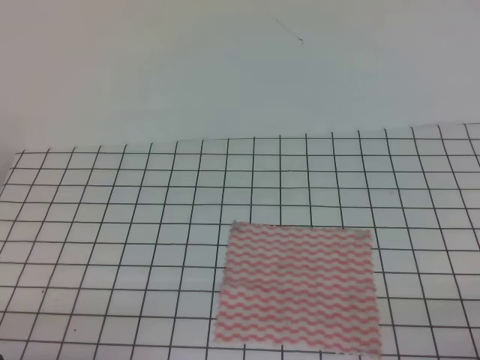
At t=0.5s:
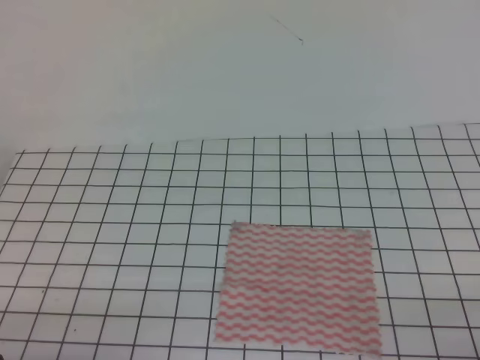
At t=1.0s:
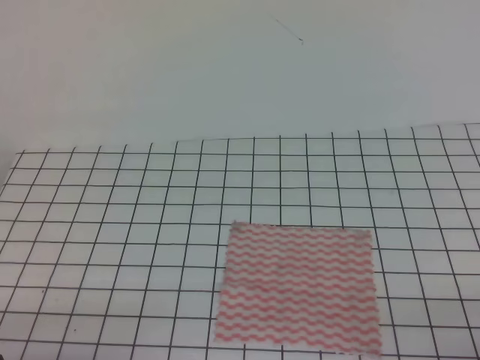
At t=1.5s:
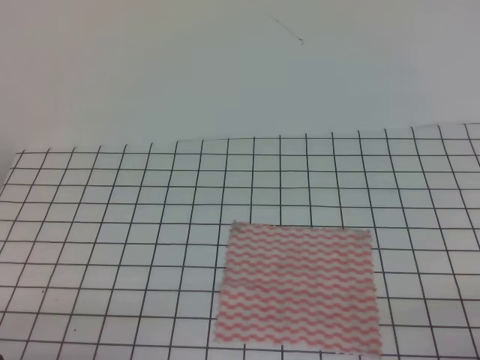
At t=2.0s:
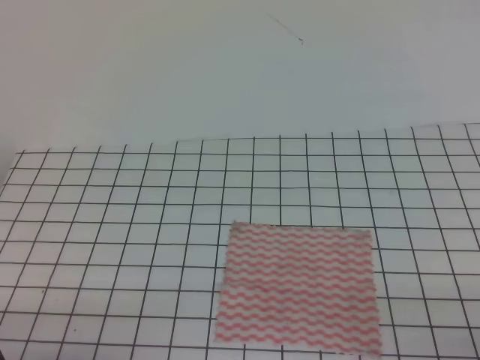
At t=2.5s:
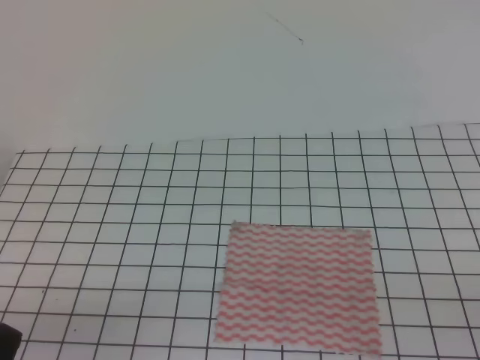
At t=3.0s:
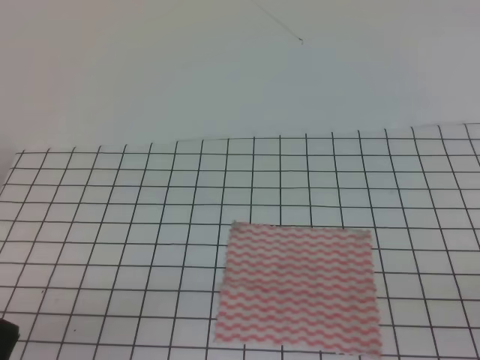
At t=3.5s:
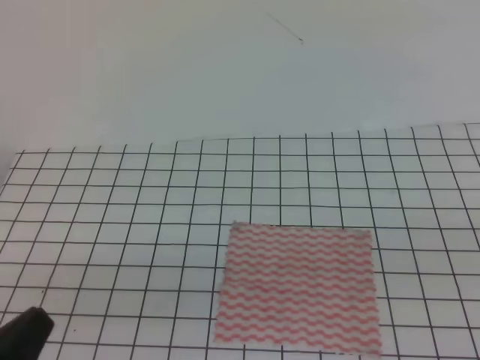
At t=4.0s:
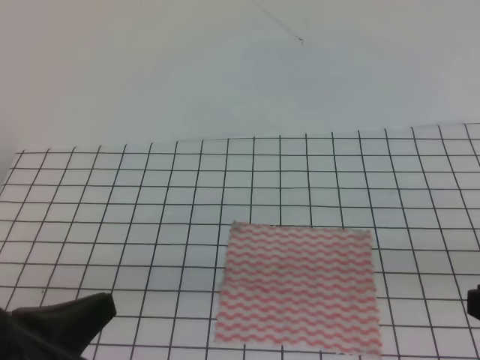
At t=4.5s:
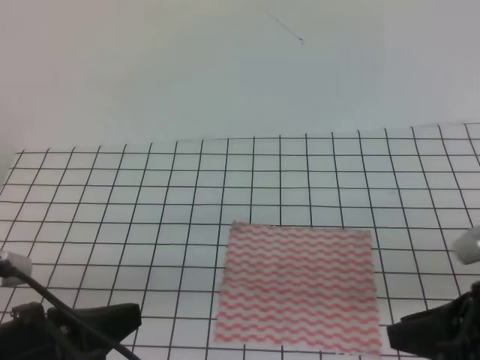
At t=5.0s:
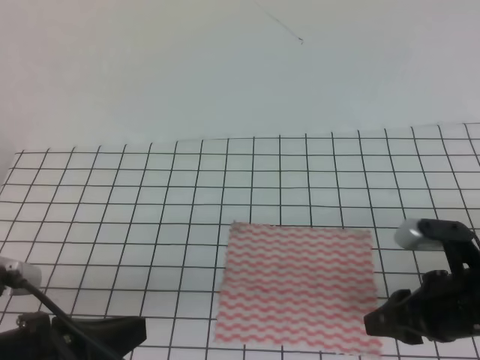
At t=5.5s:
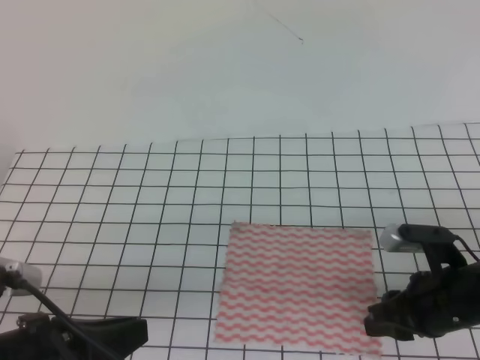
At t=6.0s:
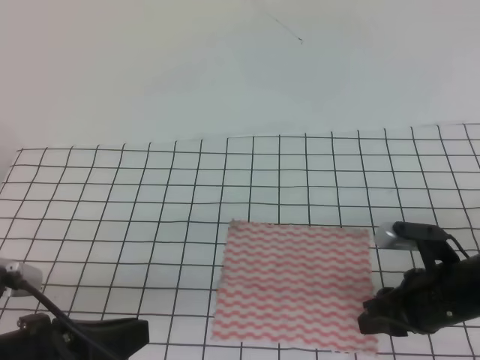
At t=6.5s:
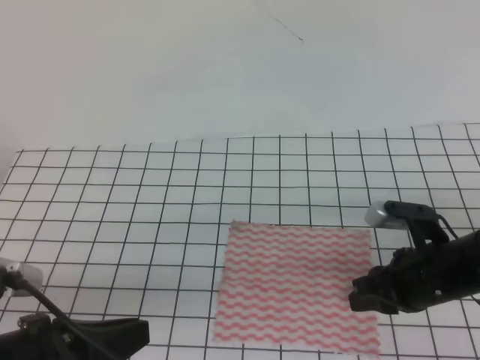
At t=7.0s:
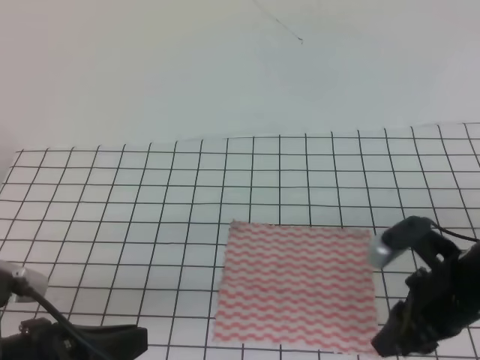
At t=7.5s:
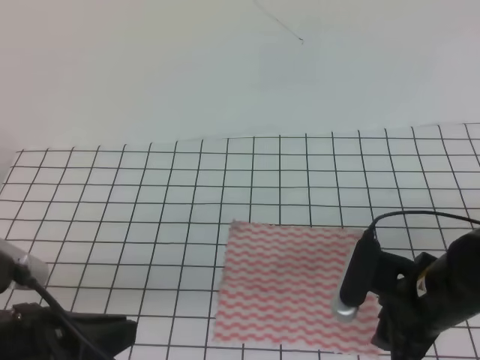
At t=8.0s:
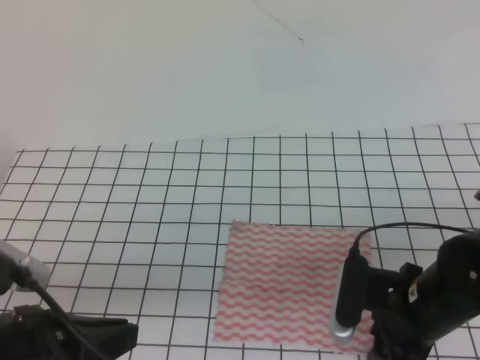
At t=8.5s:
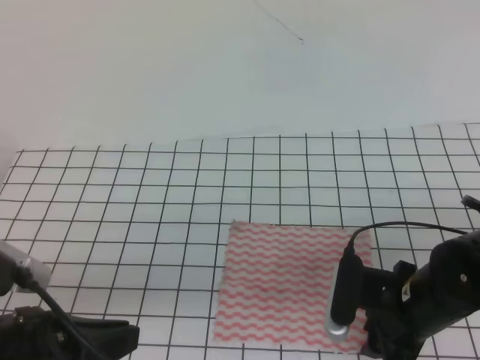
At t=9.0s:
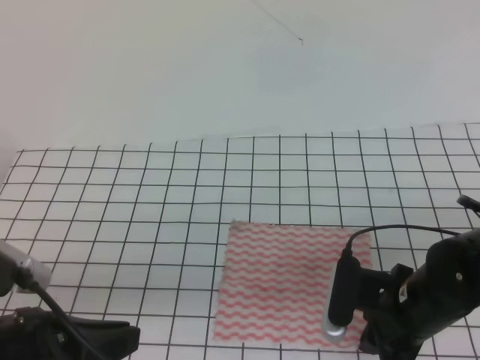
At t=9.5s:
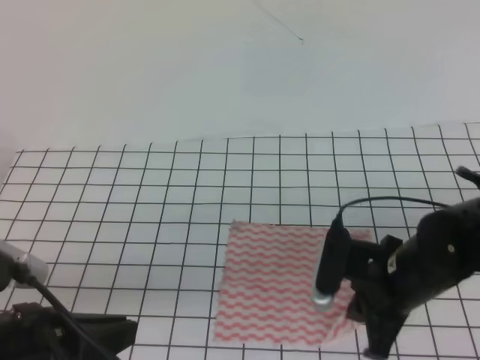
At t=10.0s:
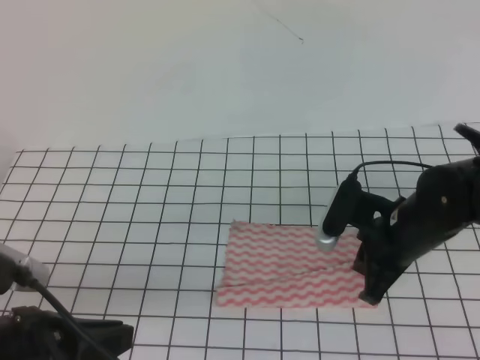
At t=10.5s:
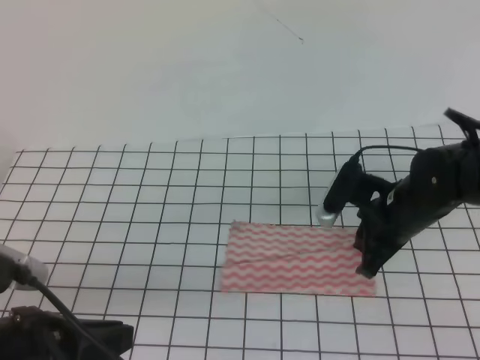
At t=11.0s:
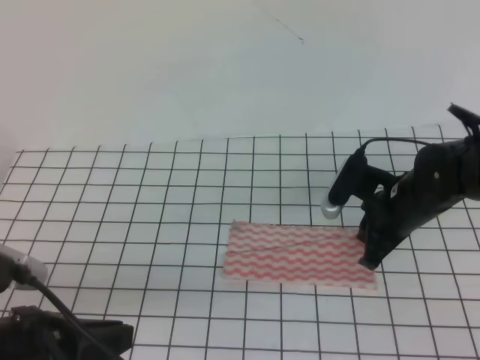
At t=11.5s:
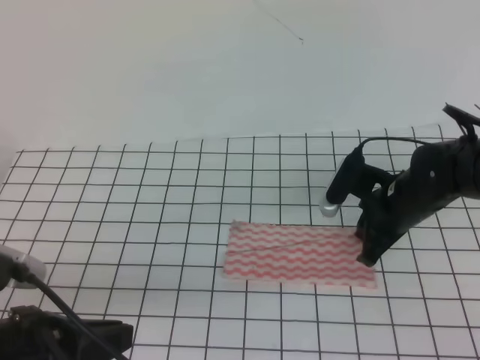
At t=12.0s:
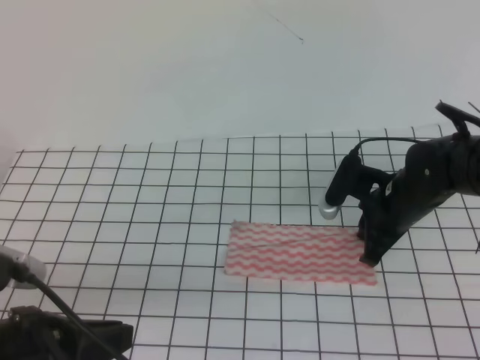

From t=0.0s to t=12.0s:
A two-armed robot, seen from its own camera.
Step, from t=0.0s to t=10.5s: Fold the towel upwards with the right gripper.
From t=2.0s to t=4.0s: The right gripper is displaced upward, forward and to the left by approximately 10 cm, and opens up. The left gripper heads upward, covering about 10 cm.
From t=4.0s to t=6.0s: The left gripper opens its fingers, while the right gripper shifts roughly 20 cm downward, forward and to the left, and opens up.
From t=6.0s to t=8.0s: The right gripper moves some 5 cm.
From t=8.0s to t=10.0s: The right gripper heads forward, covering about 10 cm, and closes up.
From t=10.0s to t=12.0s: The right gripper is displaced forward by roughly 5 cm.

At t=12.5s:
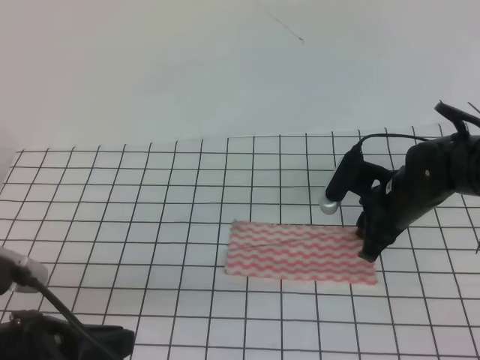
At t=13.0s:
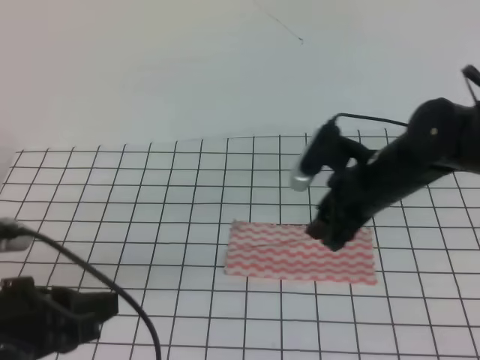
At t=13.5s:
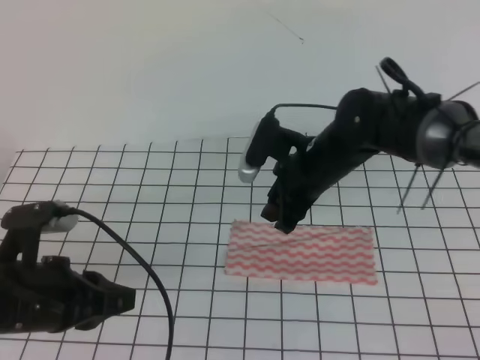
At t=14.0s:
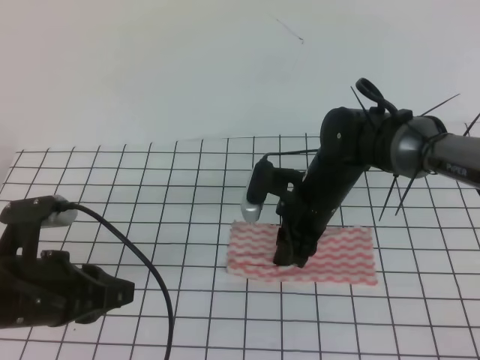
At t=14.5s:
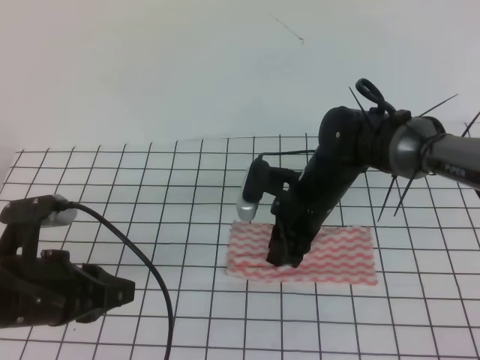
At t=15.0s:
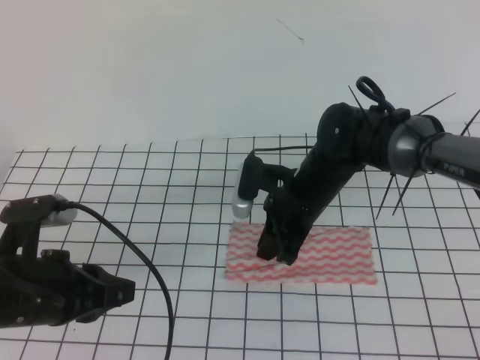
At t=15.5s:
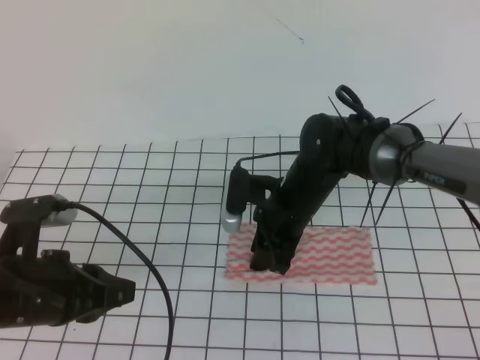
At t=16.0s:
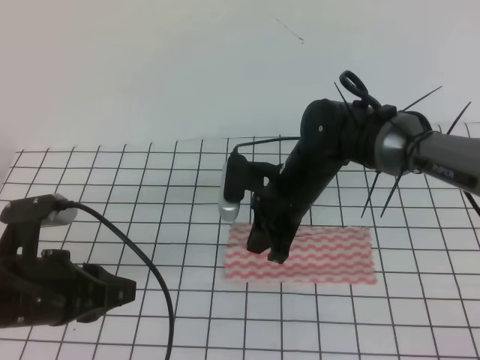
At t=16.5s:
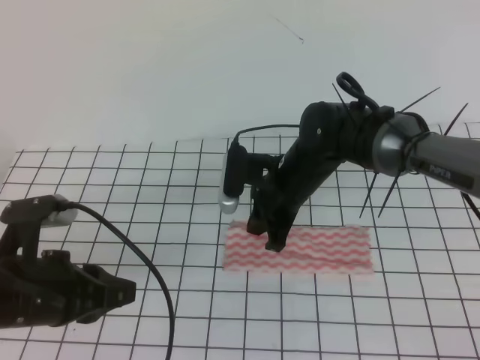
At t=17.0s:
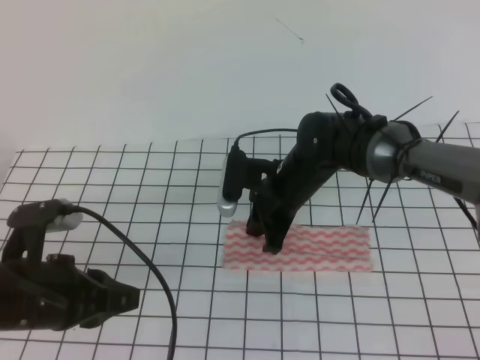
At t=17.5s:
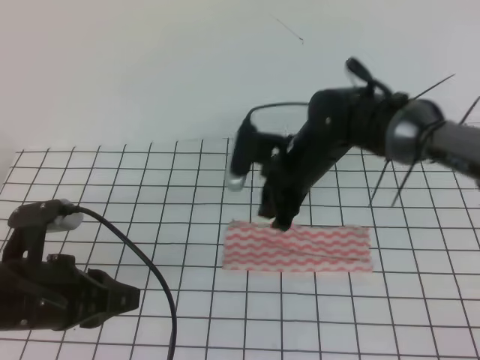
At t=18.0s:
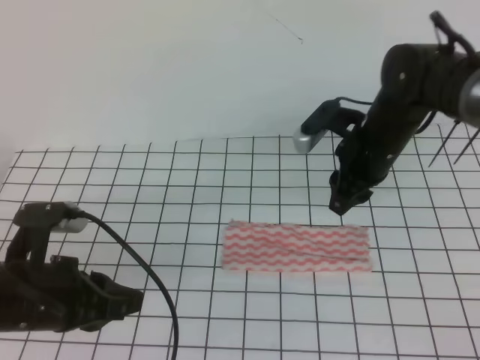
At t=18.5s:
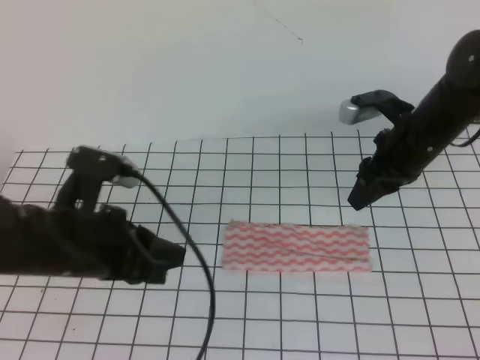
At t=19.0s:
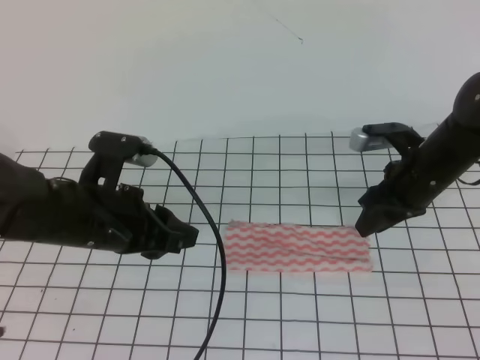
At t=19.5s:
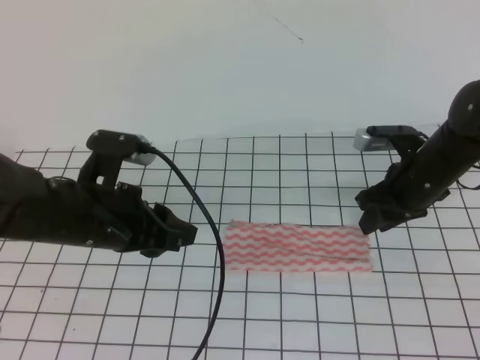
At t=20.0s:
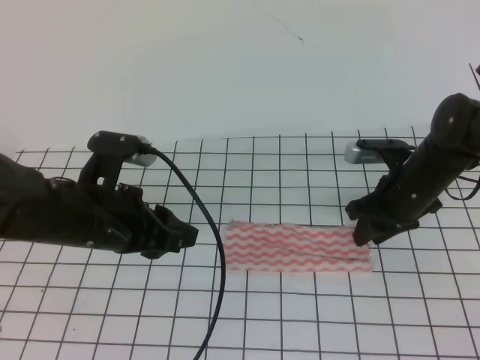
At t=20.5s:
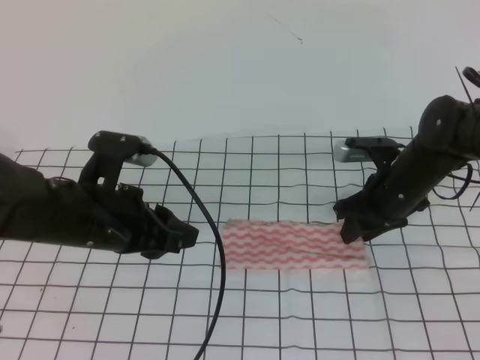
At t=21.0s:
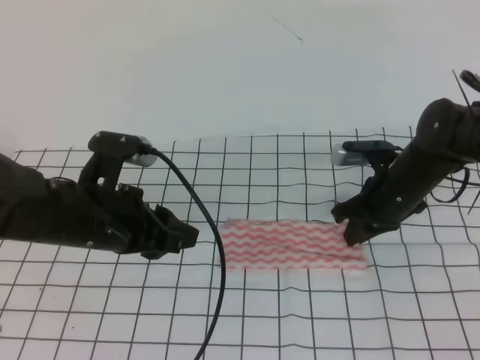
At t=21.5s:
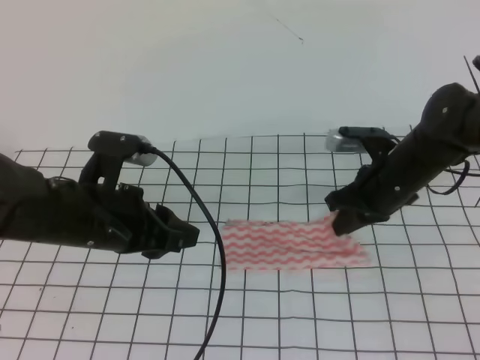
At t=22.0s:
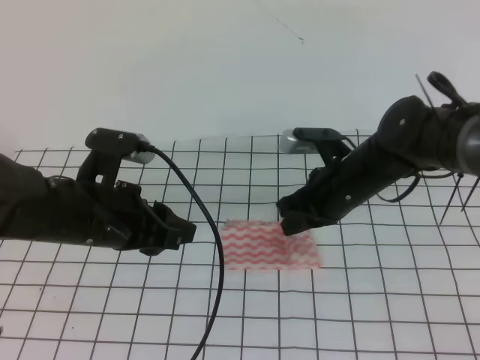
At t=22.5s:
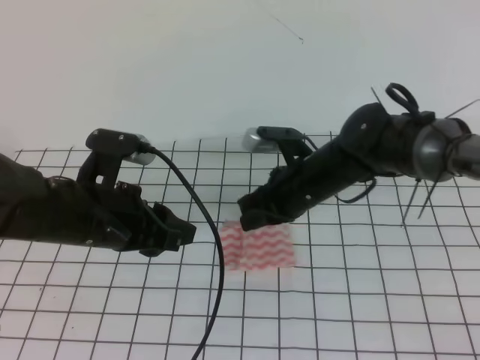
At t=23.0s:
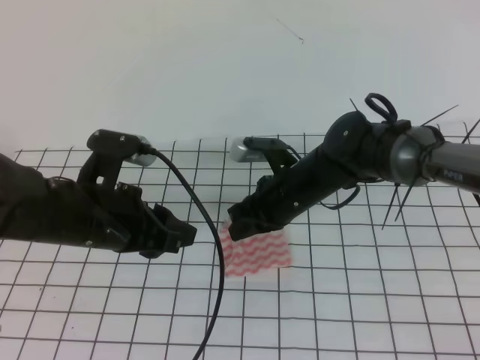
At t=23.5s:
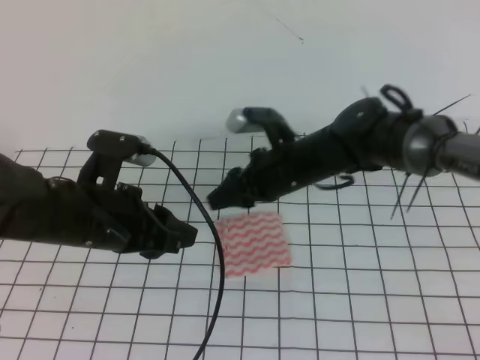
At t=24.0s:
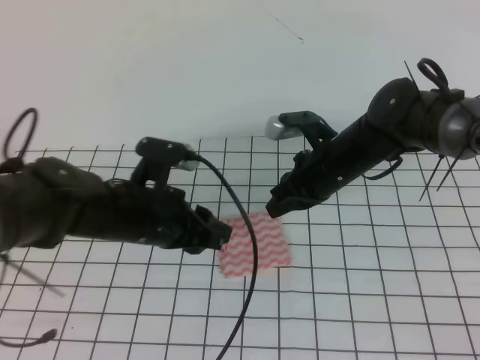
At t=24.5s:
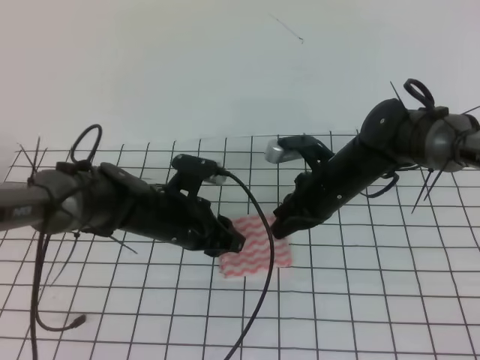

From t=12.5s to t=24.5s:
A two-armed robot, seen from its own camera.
Step, from t=14.5s to t=16.0s: Tidy up the towels.
From t=12.5s to t=14.5s: The right gripper heads to the left, covering approximately 10 cm, while the left gripper goes approximately 10 cm forward.
From t=14.5s to t=16.5s: The right gripper closes.
From t=16.5s to t=18.5s: The right gripper shifts approximately 15 cm to the right, and opens up. The left gripper shifts by some 5 cm.
From t=18.5s to t=20.5s: The right gripper moves downward, about 10 cm, while the left gripper opens its fingers.
From t=20.5s to t=22.5s: The right gripper goes some 10 cm to the left, and closes up.
From t=22.5s to t=24.5s: The left gripper travels downward, forward and to the right by about 15 cm, while the right gripper opens, then closes once more.

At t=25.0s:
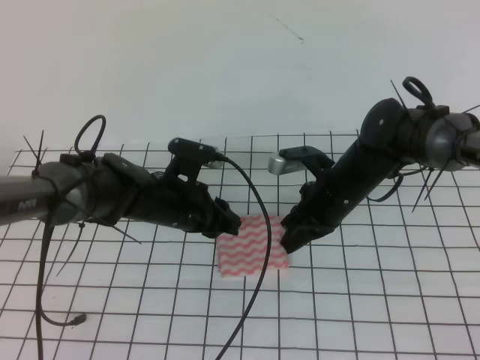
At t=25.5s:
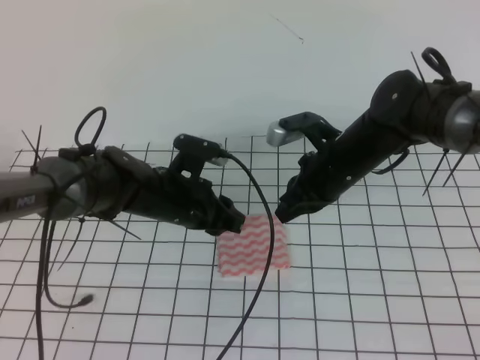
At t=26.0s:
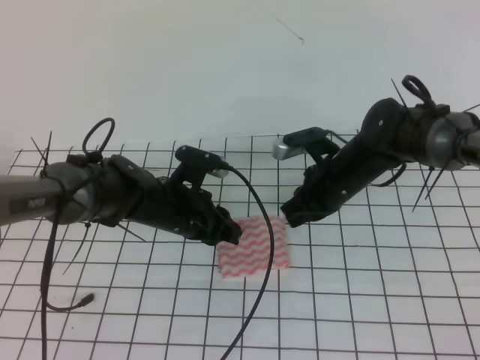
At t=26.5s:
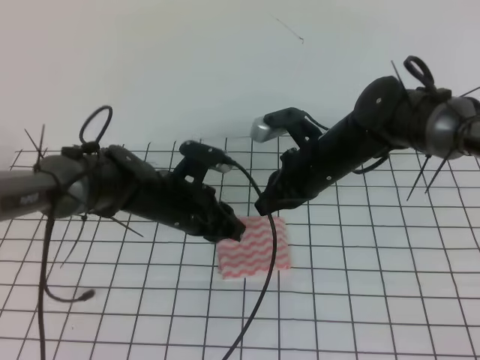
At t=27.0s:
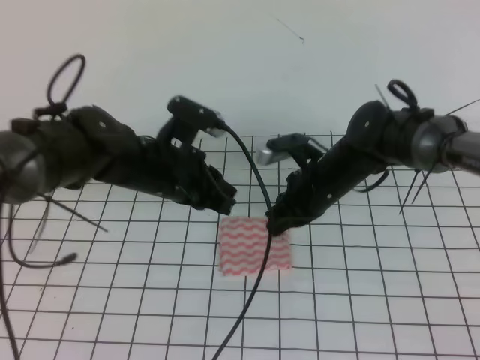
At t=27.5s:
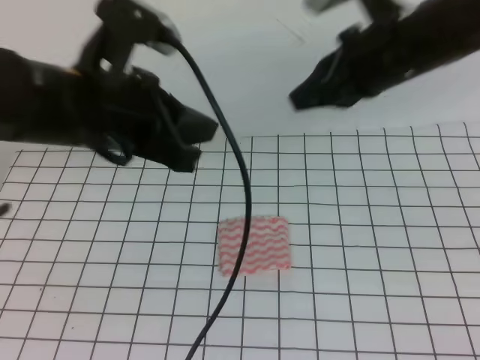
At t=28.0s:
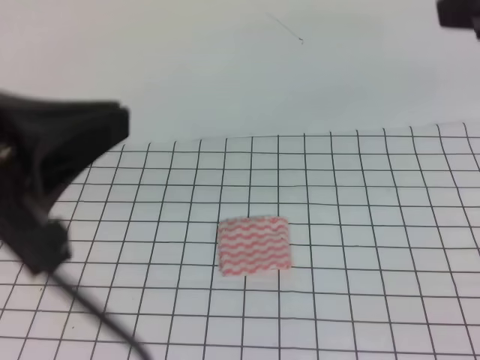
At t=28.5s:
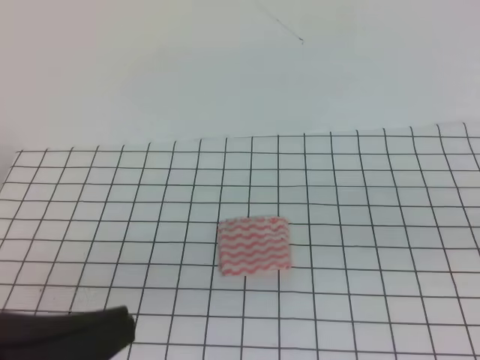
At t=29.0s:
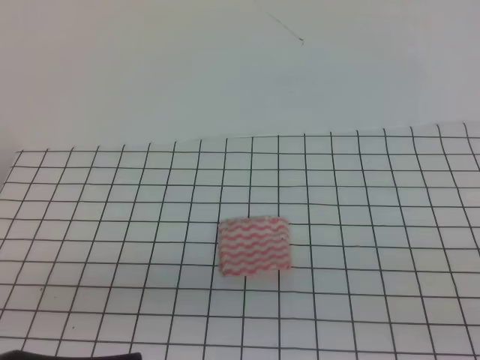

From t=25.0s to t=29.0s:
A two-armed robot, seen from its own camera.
From t=25.0s to t=27.0s: The left gripper moves upward, about 10 cm, and closes its fingers.
From t=27.0s to t=29.0s: The left gripper goes approximately 30 cm backward; the right gripper moves backward, to the right and upward, some 40 cm.
